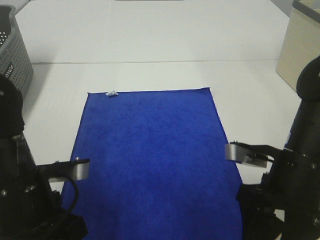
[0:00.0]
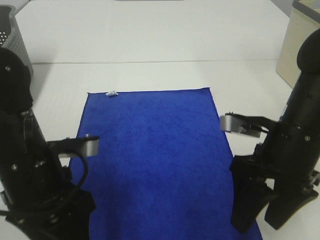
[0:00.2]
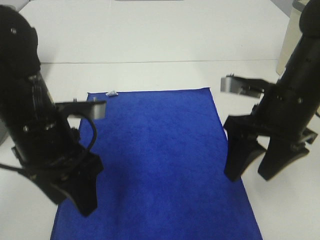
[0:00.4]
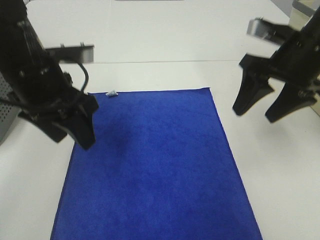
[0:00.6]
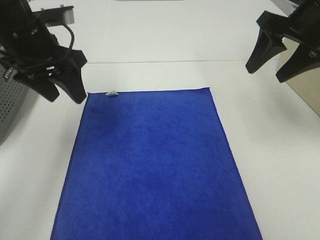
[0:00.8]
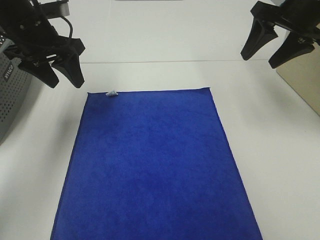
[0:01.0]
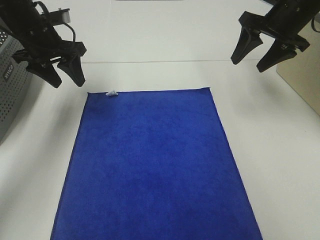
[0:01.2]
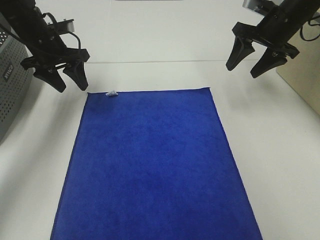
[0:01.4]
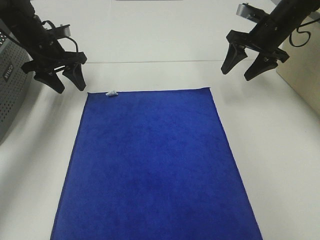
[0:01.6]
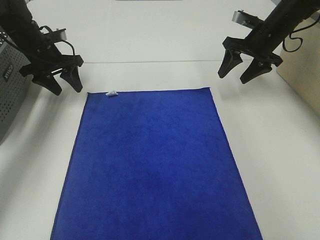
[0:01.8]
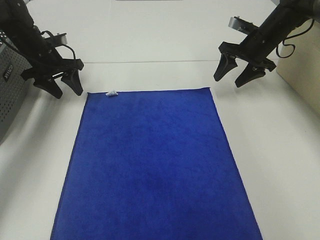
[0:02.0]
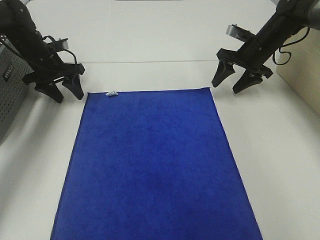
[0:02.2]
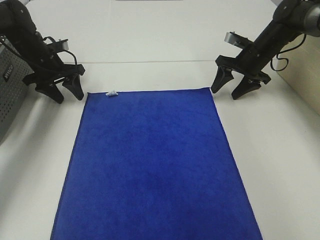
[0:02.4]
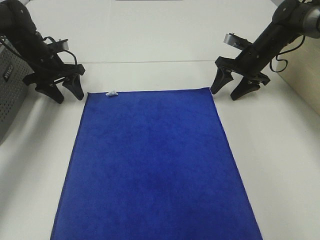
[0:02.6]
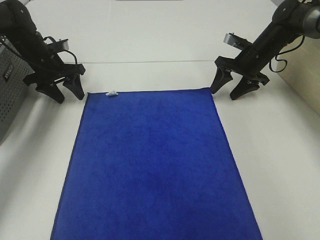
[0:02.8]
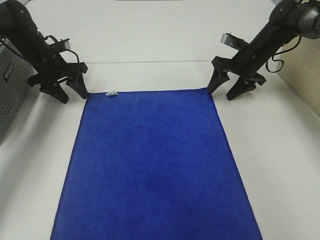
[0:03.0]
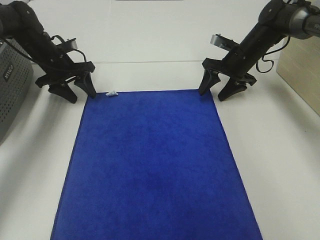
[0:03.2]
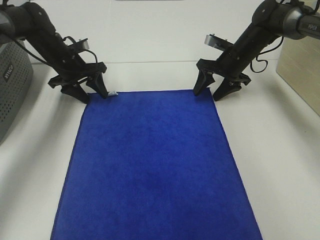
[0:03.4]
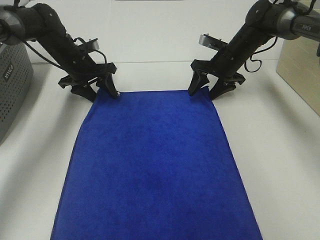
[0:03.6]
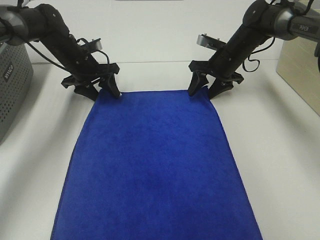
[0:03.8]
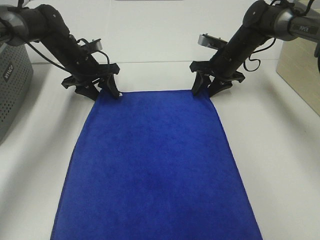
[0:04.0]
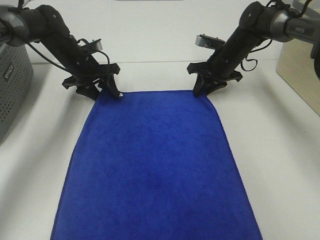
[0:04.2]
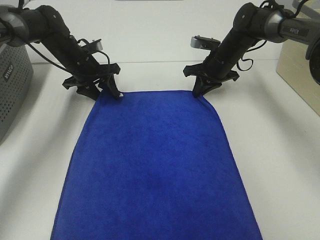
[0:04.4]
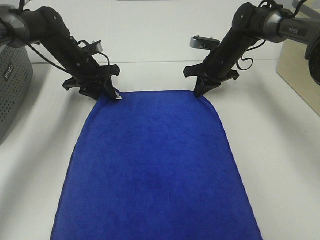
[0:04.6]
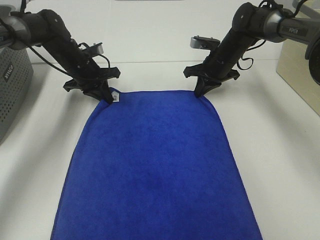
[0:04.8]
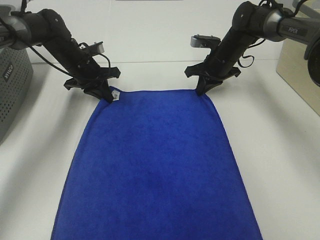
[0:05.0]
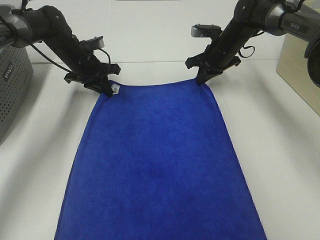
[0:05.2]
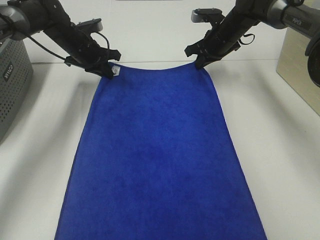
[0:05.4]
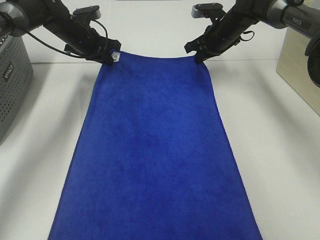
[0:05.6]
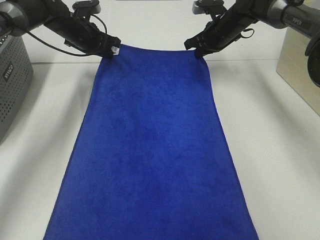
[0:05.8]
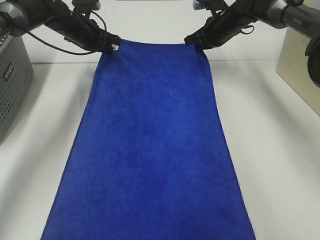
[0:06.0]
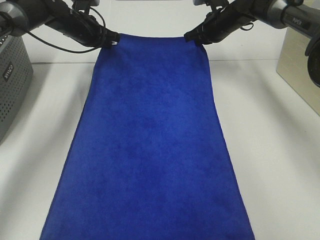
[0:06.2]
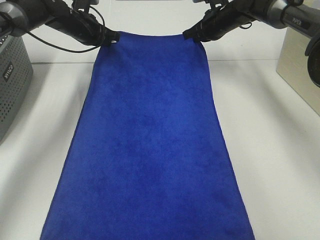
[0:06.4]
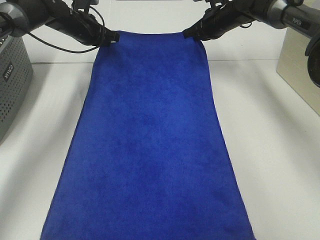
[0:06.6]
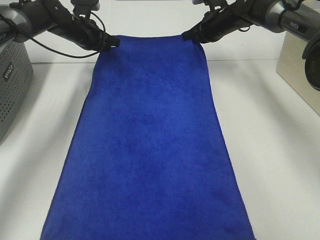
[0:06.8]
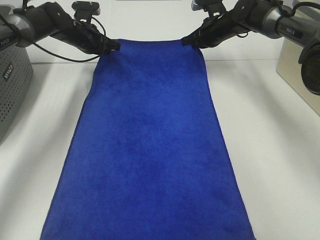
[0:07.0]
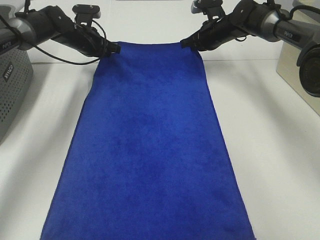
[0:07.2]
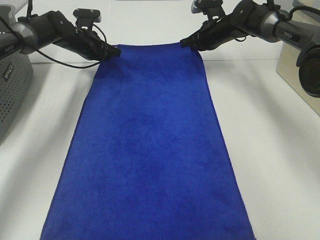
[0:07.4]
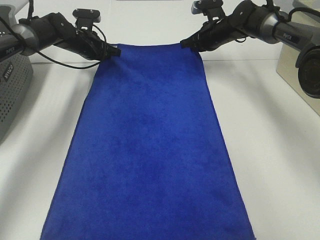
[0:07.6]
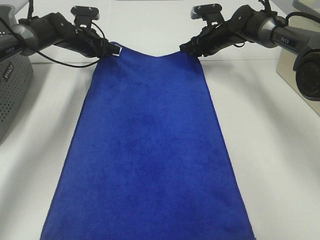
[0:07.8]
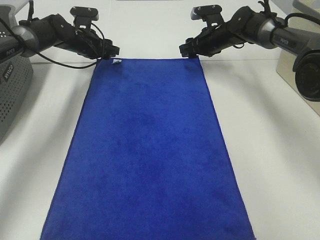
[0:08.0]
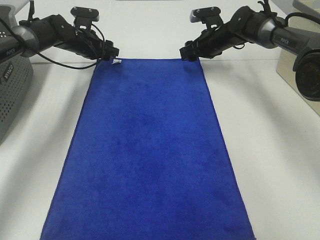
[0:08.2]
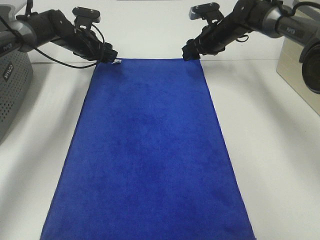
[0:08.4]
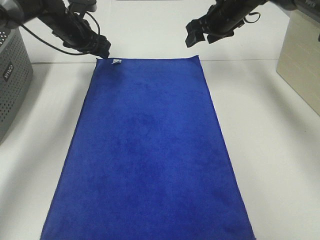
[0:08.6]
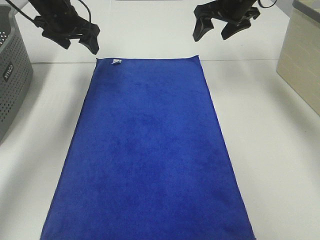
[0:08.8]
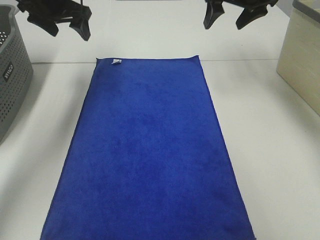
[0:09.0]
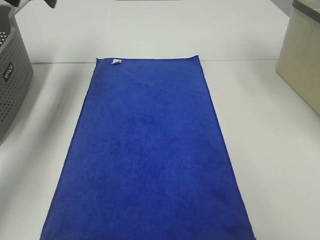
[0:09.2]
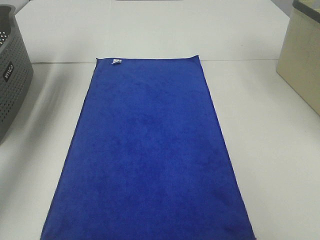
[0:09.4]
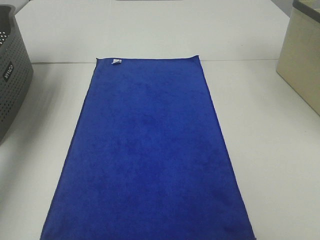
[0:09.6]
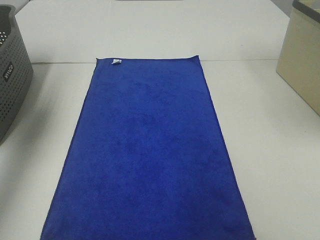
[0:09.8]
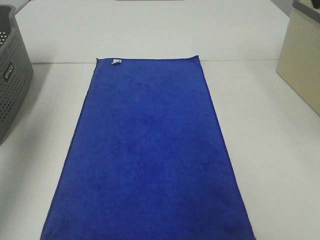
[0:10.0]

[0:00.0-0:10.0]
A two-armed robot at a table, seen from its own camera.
Task of the whole recording: Remove the towel and place it.
0:00.0 to 0:01.4: Both grippers move forward, approximately 30 cm.
0:01.4 to 0:02.8: The left gripper goes about 5 cm downward, while the right gripper goes about 10 cm downward and forward.
0:02.8 to 0:04.2: The right gripper shifts some 5 cm to the left, and closes its fingers; the left gripper heads to the right, covering approximately 10 cm.
0:04.2 to 0:05.8: The right gripper moves upward, about 5 cm. Meanwhile the left gripper is displaced forward and upward by some 5 cm, and closes up.
0:05.8 to 0:07.2: The grippers make only small movements.
0:07.2 to 0:08.6: The left gripper moves approximately 5 cm, and opens its fingers. Meanwhile the right gripper goes about 5 cm upward, and opens.
0:08.6 to 0:10.0: The right gripper goes some 35 cm backward and upward. Meanwhile the left gripper heads backward, upward and to the left, covering about 40 cm.

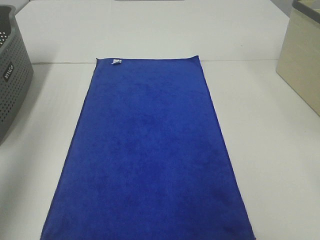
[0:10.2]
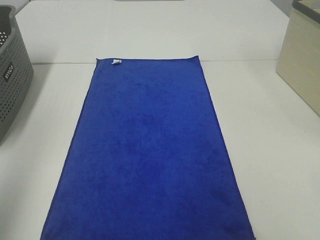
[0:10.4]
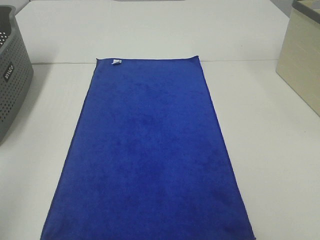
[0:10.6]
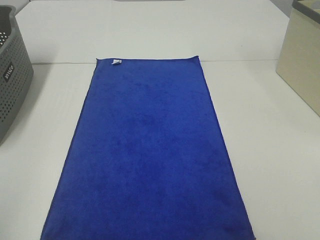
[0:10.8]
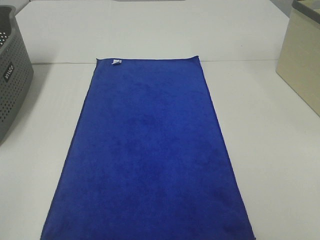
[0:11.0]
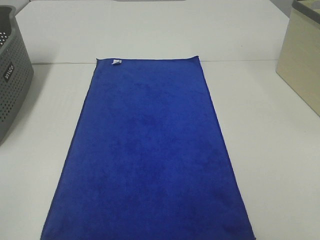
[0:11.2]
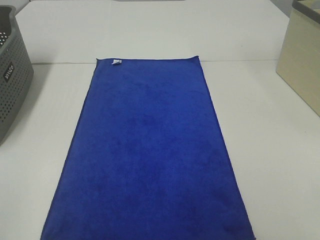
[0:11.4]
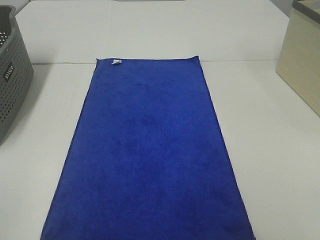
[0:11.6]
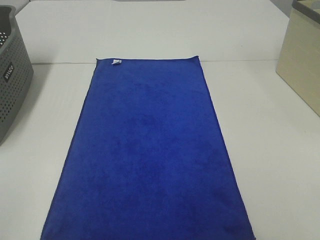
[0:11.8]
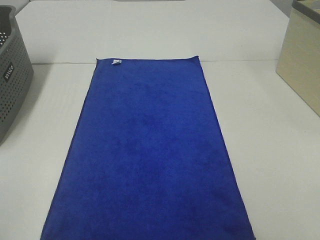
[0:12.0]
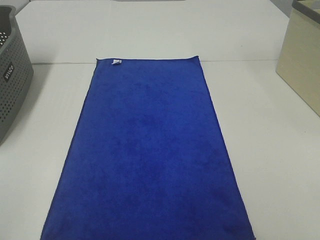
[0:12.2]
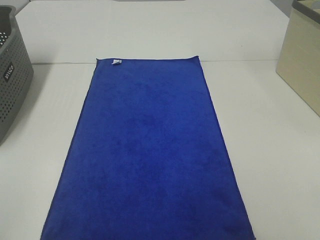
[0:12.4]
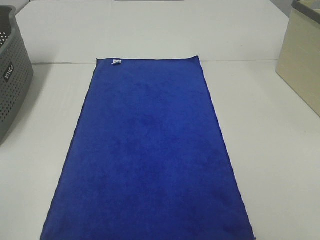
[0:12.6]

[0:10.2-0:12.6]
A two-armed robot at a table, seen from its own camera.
Task of the whole recording: Remove the towel and place it.
0:10.2 to 0:11.4: The left gripper heads backward and downward, covering roughly 25 cm.
0:11.4 to 0:12.6: The two grippers keep their place.
